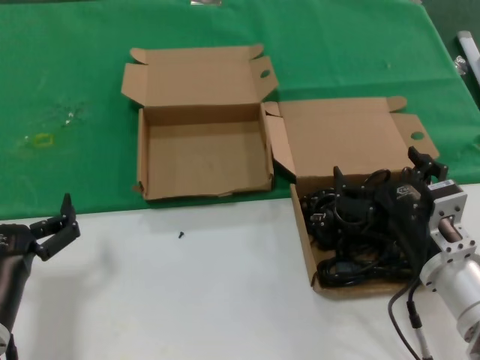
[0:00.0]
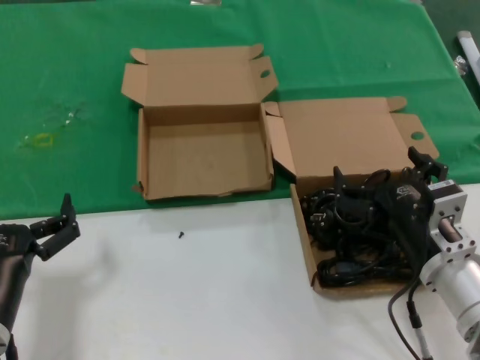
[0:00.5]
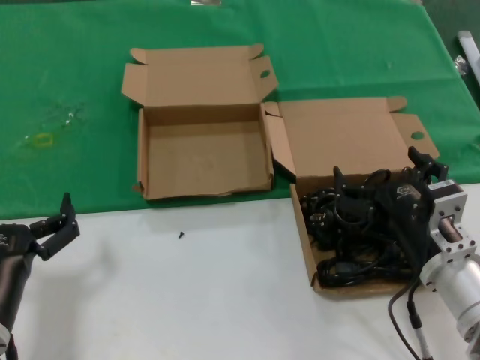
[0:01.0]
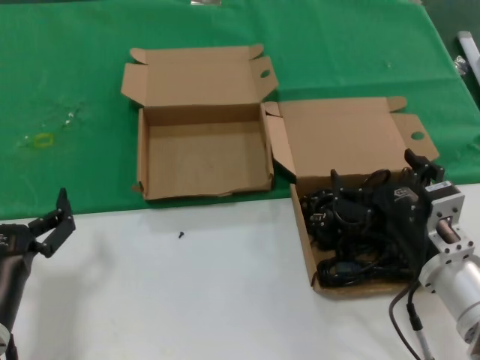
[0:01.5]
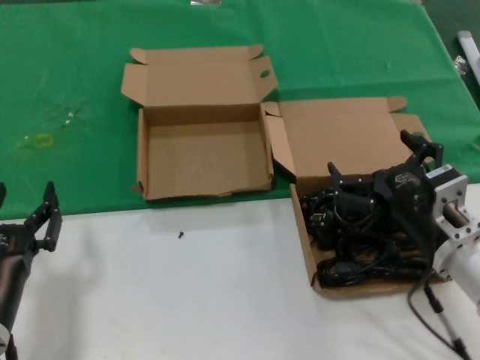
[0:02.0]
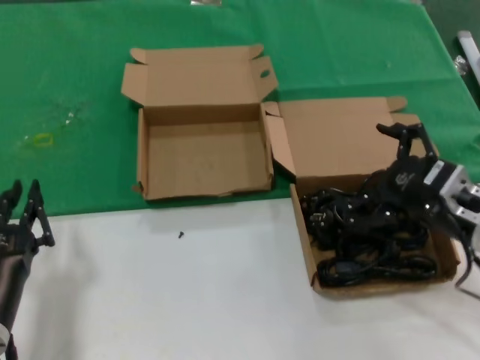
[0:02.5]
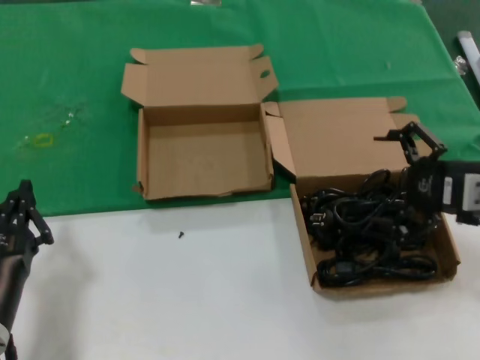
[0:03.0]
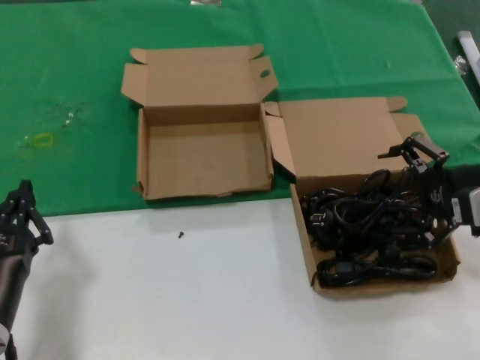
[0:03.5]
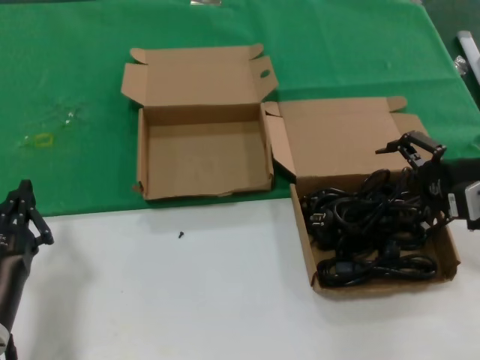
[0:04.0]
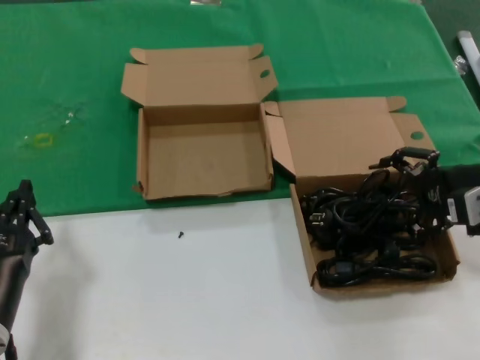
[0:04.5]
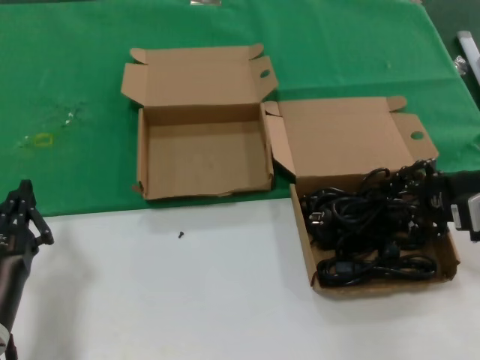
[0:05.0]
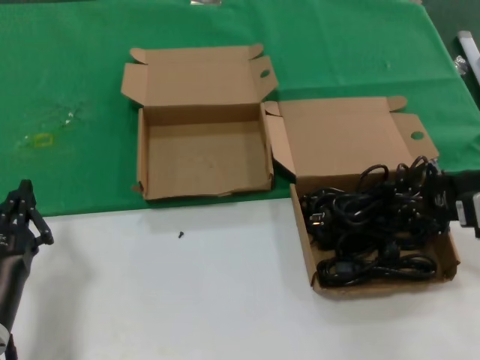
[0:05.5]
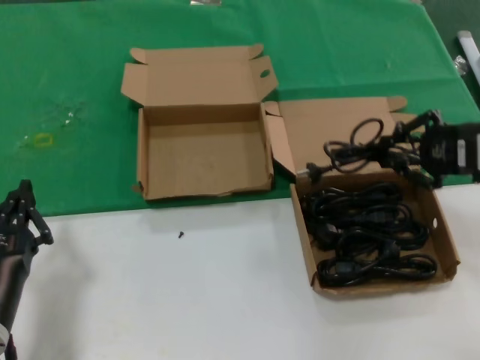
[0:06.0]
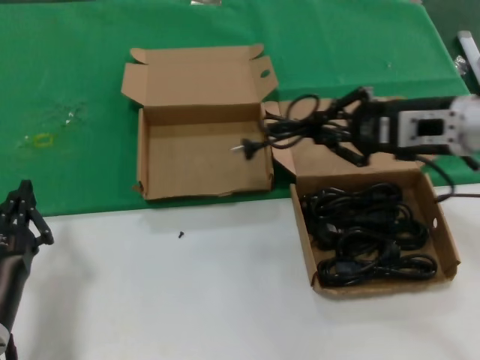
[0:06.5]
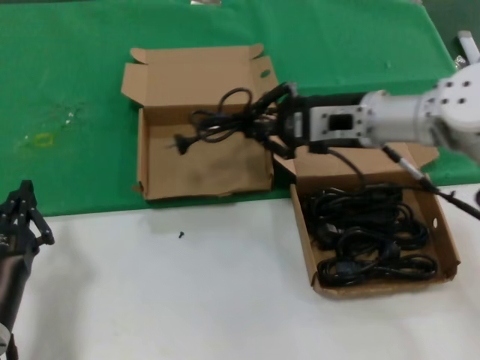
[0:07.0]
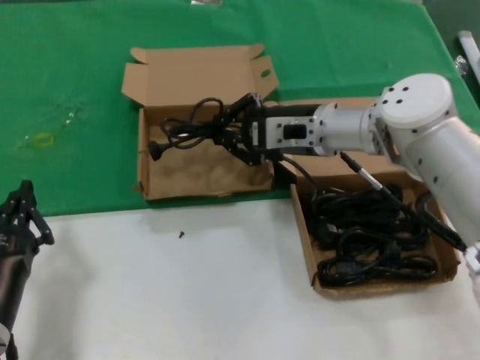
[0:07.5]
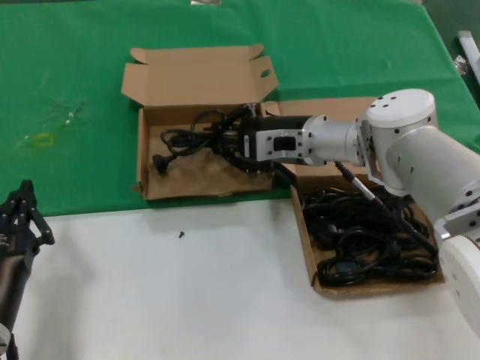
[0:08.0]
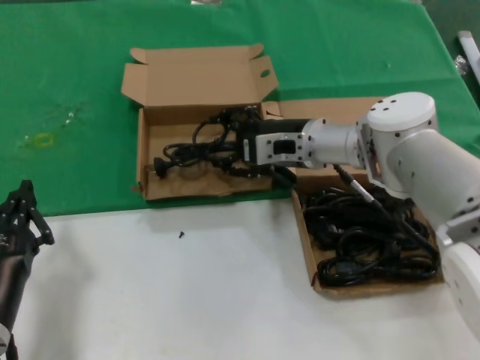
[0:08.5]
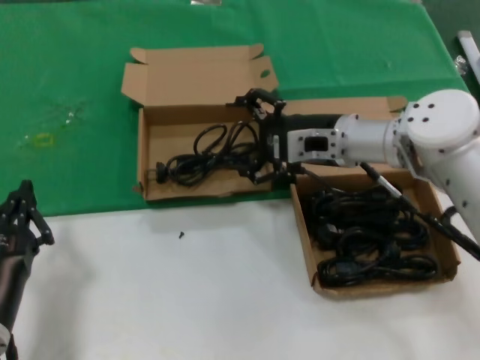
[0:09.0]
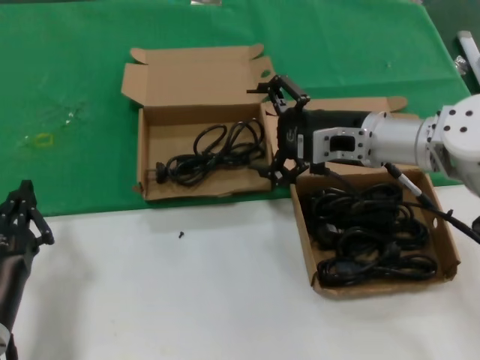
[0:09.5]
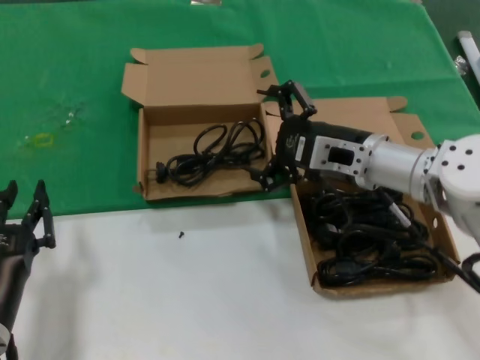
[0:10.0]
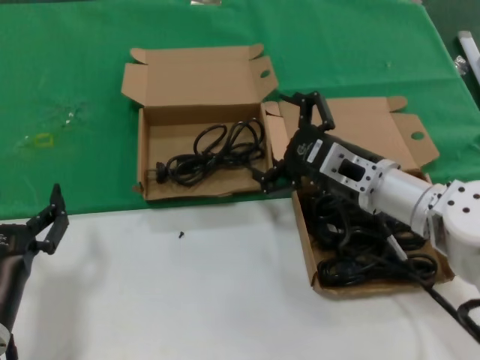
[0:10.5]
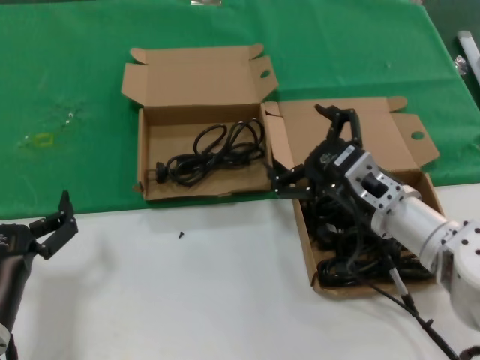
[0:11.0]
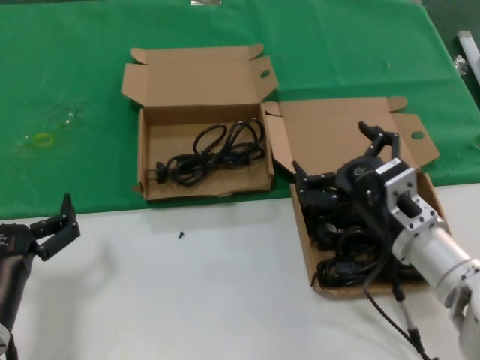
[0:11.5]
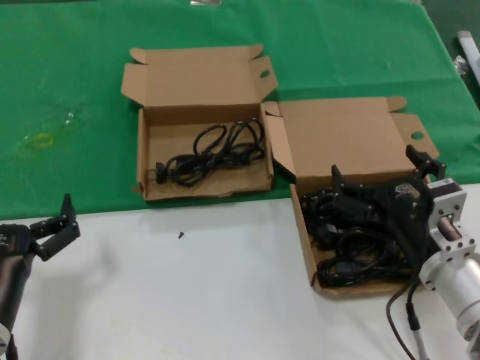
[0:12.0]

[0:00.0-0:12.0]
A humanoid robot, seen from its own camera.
Task of the whole recording: take the parts from the box containing them and put them into an empty box.
Step, 0:00.0 to 0:05.0: Grasp the data cable.
Step, 0:05.5 to 0:08.5: Place the data cable in the another box.
0:00.0 to 0:02.0: The hands stay close to where they were, moving slightly.
0:02.0 to 0:04.0: The right hand travels to the right, forward and upward by about 20 cm.
0:04.0 to 0:06.0: The hands make only small movements.
0:06.0 to 0:08.0: The right hand is displaced to the left and forward by some 25 cm.
0:08.0 to 0:10.0: The right hand is displaced backward and to the right by approximately 10 cm.
0:10.0 to 0:12.0: The right hand goes roughly 15 cm backward and downward.

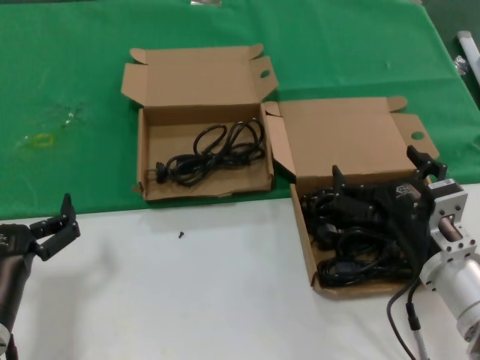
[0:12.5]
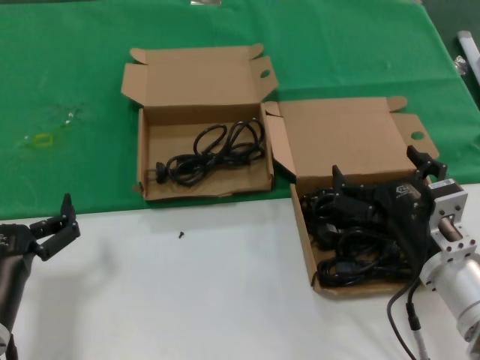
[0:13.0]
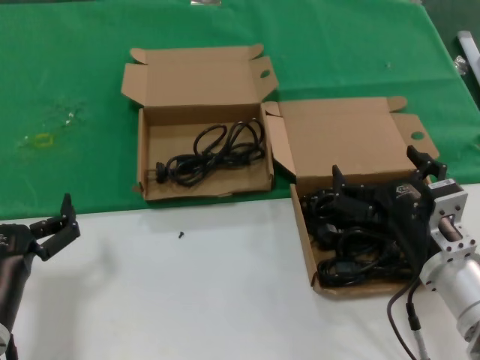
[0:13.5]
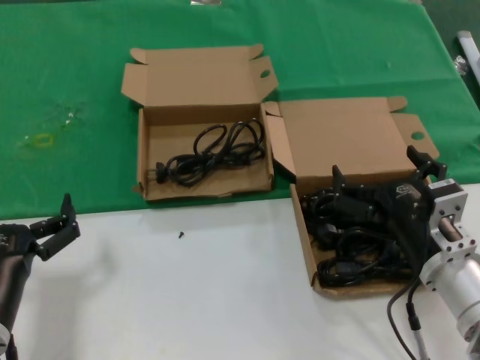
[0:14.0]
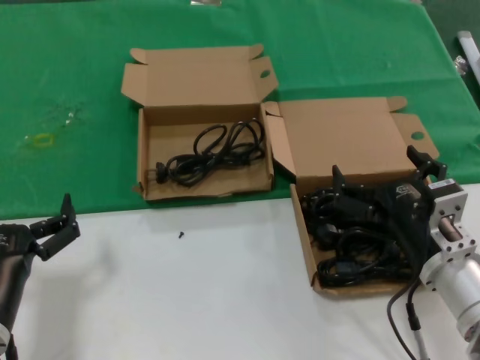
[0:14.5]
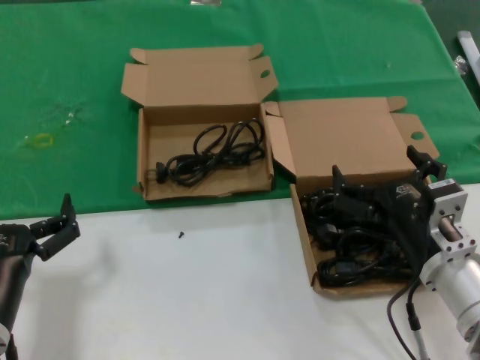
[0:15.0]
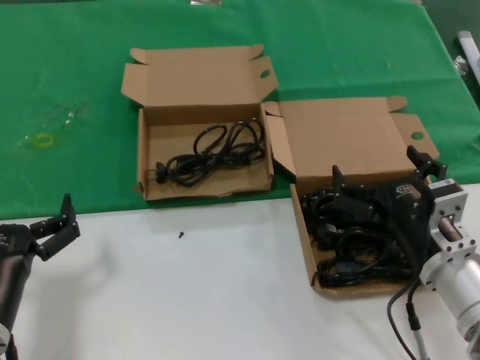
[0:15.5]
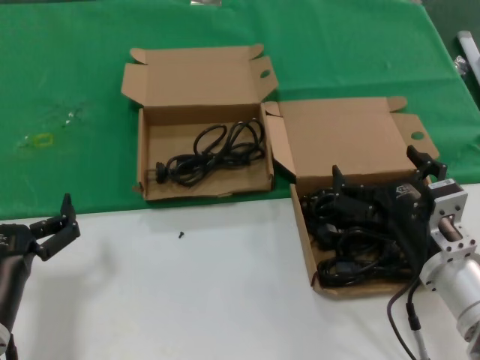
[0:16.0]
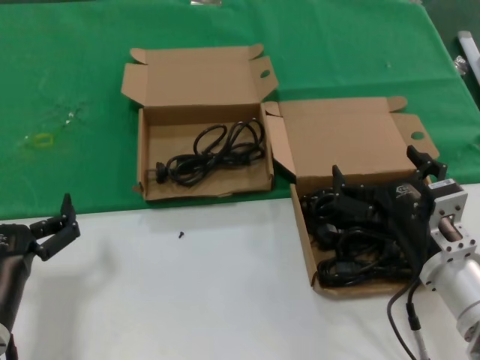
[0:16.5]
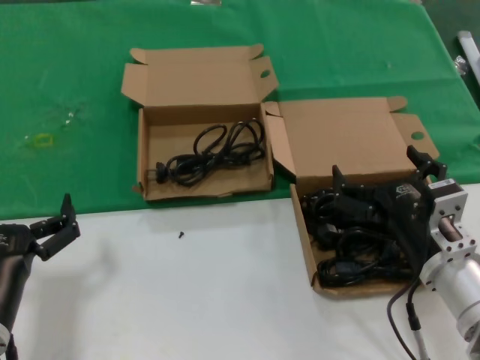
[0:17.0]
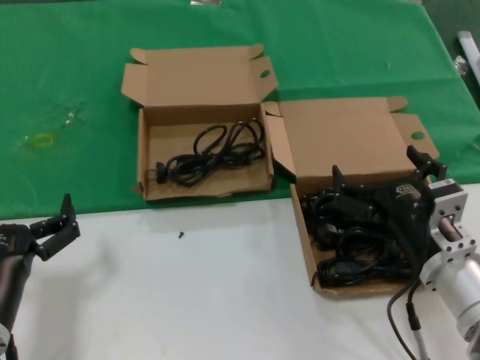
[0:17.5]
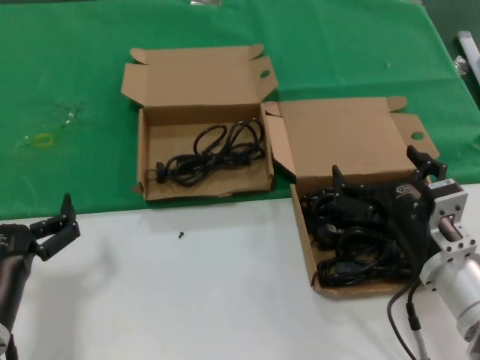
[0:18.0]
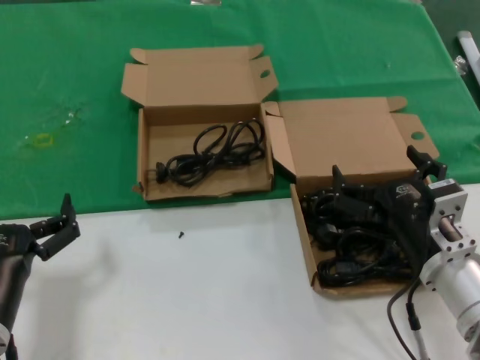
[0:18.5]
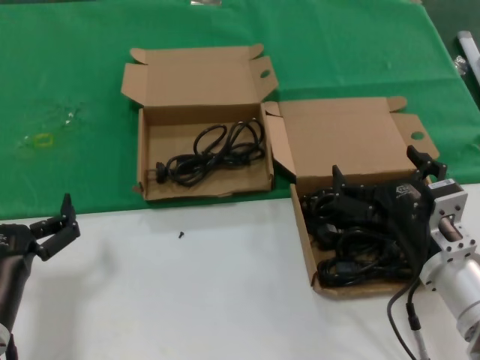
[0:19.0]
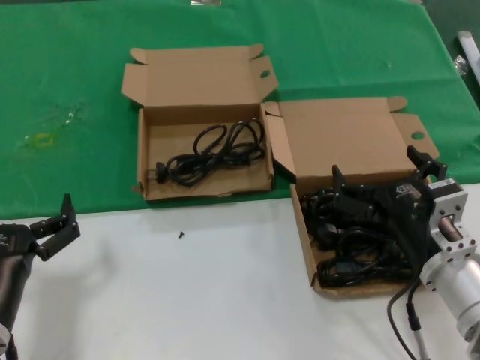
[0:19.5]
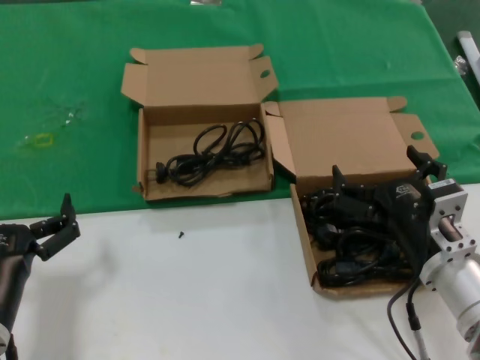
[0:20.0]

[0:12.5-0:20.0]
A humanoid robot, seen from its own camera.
Task of the whole recording: take the parts from the box containing them and put them into an empty box.
0:12.5 to 0:20.0: Neither hand changes place.
